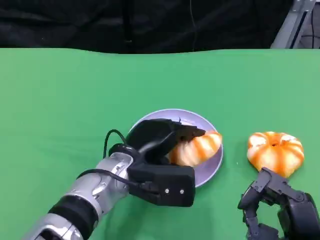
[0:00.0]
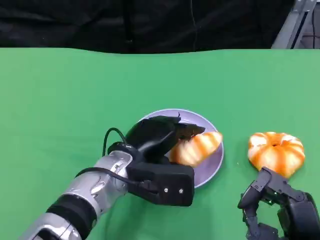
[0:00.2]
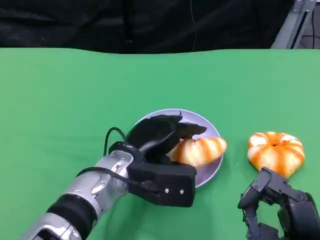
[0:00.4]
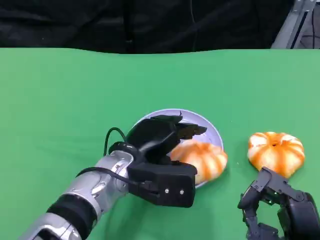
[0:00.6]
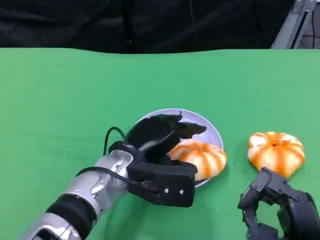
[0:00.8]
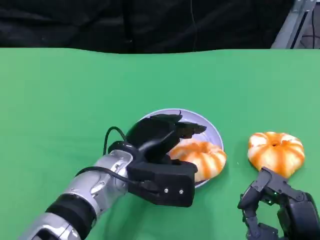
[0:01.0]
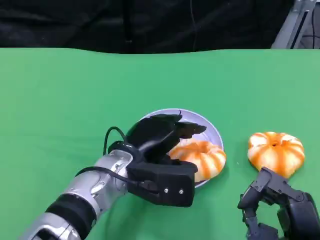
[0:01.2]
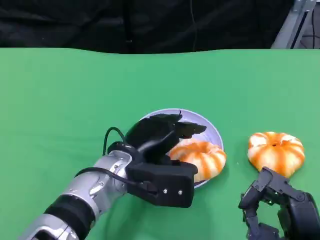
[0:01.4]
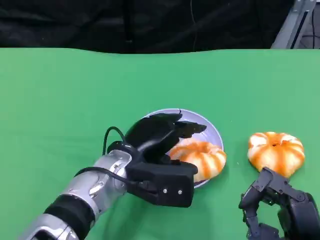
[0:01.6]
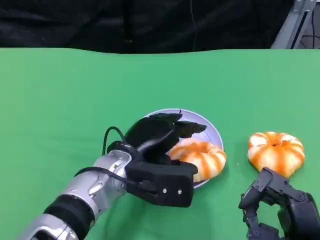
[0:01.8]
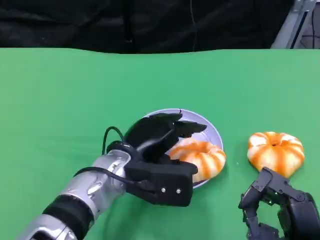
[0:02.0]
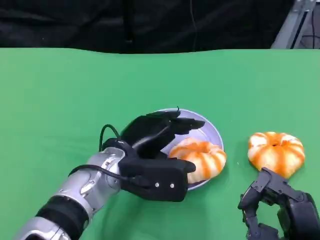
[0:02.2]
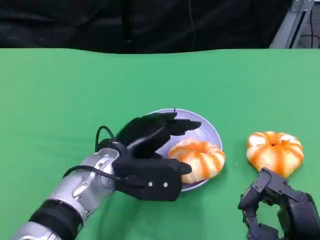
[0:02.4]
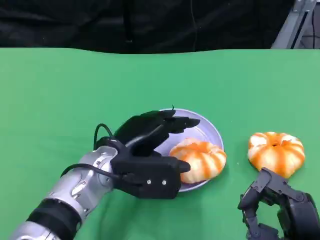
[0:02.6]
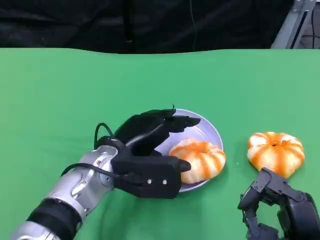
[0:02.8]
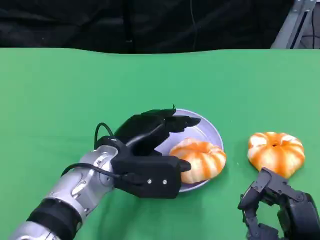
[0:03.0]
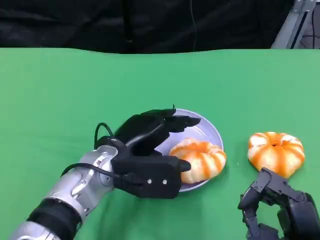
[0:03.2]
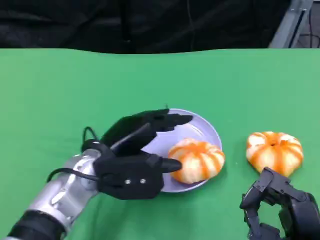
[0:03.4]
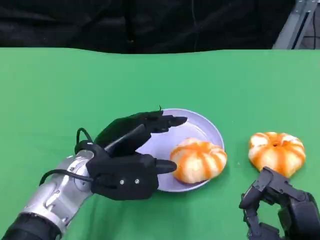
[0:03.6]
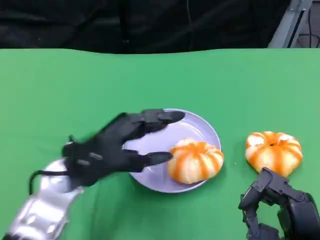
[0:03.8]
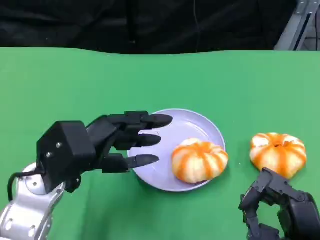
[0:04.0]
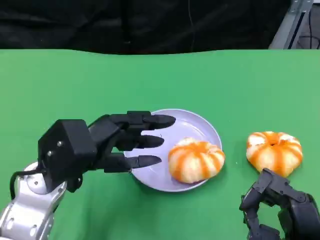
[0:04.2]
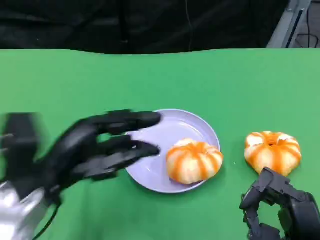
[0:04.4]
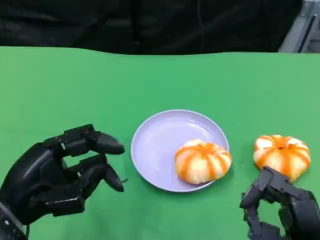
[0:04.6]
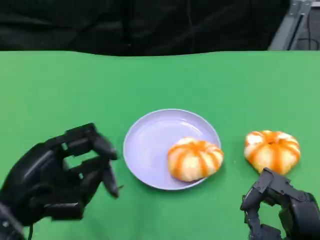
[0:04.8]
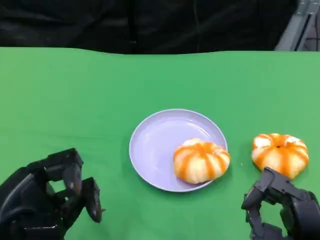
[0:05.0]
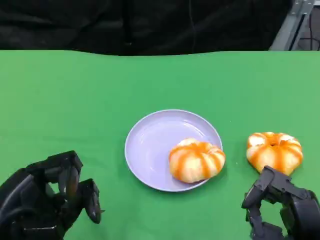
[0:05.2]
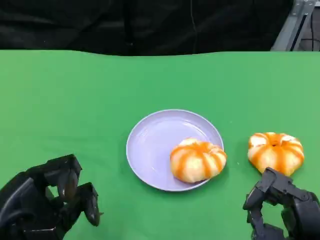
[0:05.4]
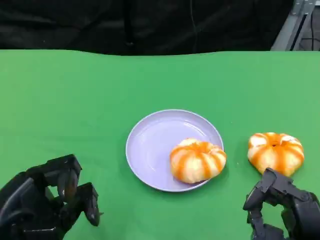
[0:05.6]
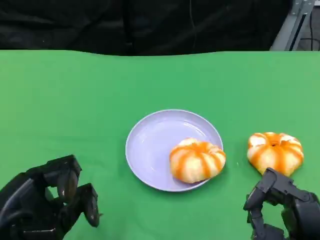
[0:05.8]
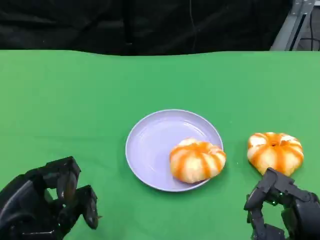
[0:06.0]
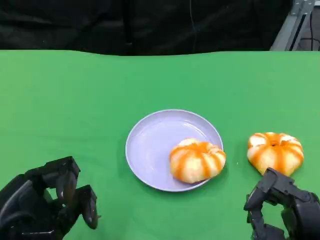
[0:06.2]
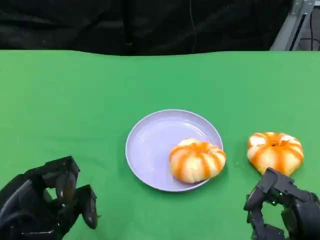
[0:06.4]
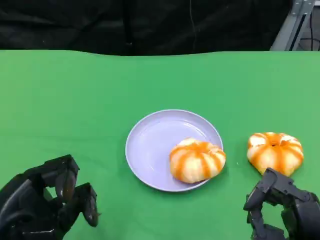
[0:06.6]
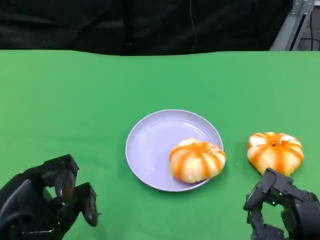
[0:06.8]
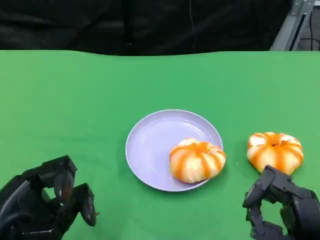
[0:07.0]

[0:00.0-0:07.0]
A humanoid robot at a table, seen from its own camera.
Task of the whole recording: Grasp the bread from the table and place it into the plate.
0:00.0 to 0:01.4: The two hands keep their place.
0:01.4 to 0:02.8: The hands move only a little.
0:02.8 to 0:04.2: The left hand goes some 10 cm to the left.
0:04.2 to 0:05.6: The left hand travels backward and to the left by about 15 cm.
0:05.6 to 0:07.0: Neither hand changes place.
